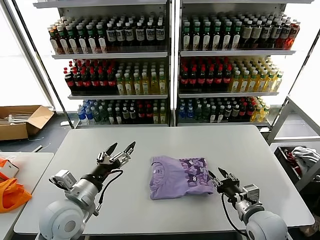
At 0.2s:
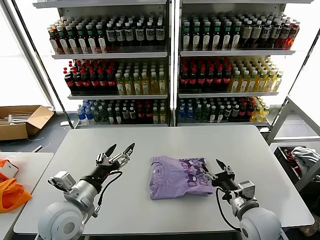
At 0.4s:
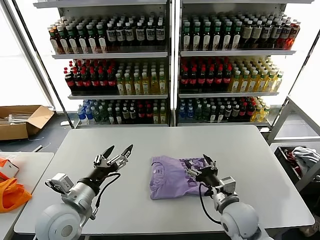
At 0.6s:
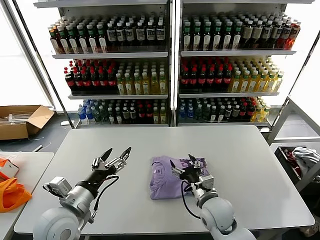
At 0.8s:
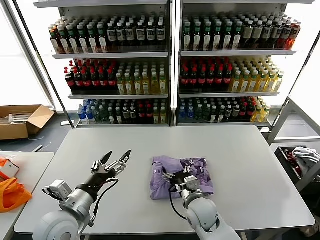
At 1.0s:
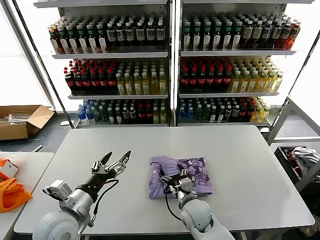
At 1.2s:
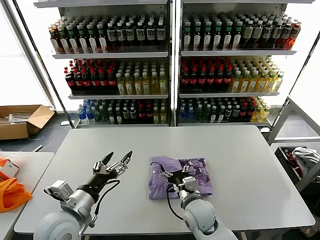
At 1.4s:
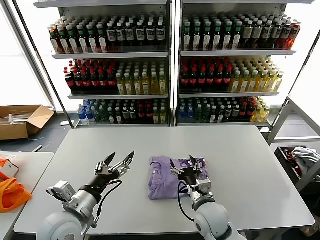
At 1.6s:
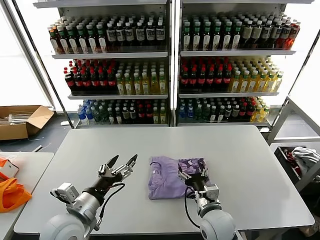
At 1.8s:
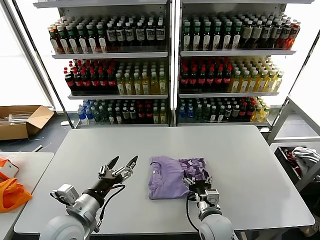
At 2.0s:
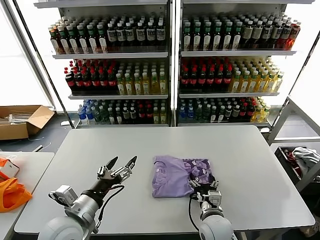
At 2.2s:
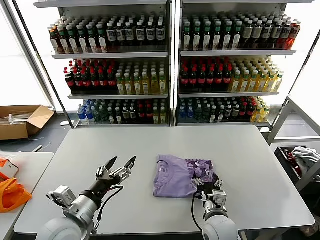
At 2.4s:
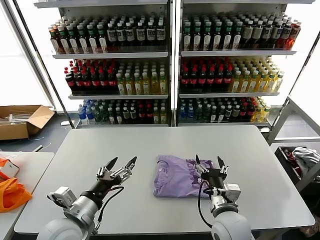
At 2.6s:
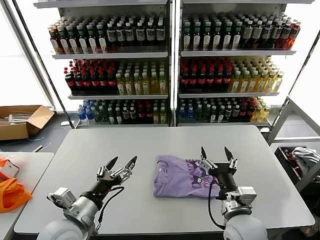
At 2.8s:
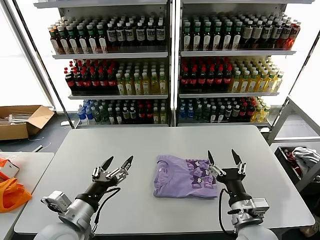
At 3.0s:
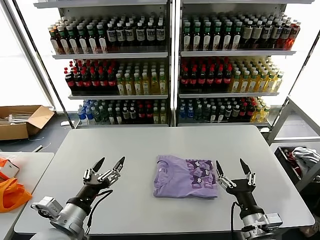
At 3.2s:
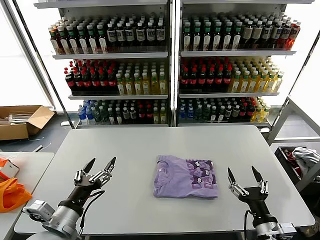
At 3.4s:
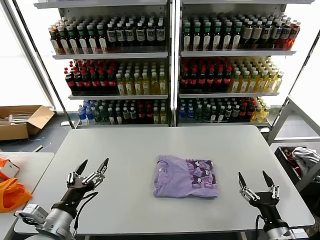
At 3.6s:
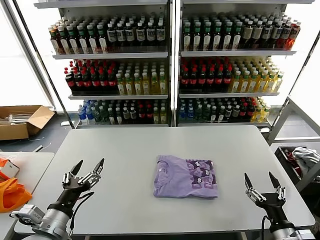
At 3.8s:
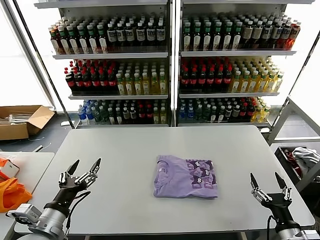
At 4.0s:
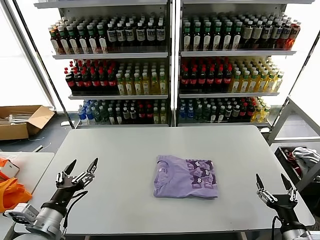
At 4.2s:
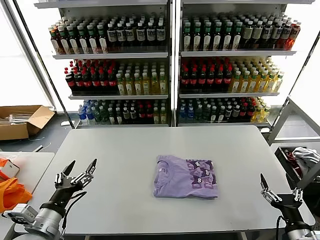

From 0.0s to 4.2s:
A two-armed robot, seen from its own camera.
Task of the whole recording: fold and organize the clothes.
Step, from 0.0s to 2.2s: Drag the clothes to the center of the table.
From 0.0s to 1.4s: The right gripper is displaced to the left by some 15 cm, and opens up.
From 1.4s to 2.8s: The right gripper heads to the right, backward and upward, covering some 15 cm.
From 2.8s to 4.2s: The left gripper heads to the left, covering approximately 10 cm, while the right gripper travels to the right, backward and downward by roughly 20 cm.
